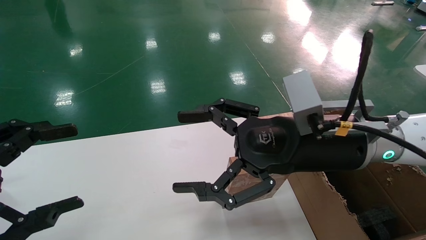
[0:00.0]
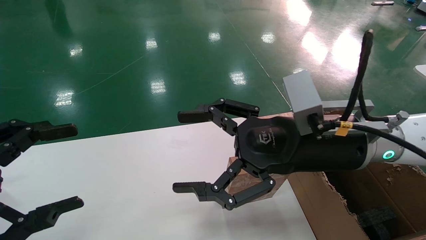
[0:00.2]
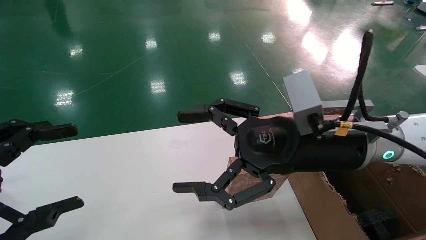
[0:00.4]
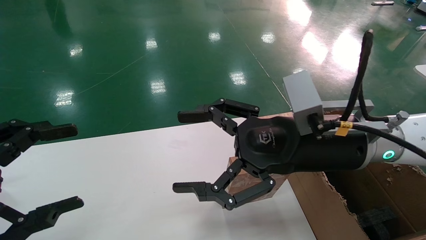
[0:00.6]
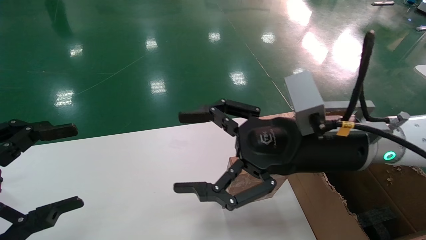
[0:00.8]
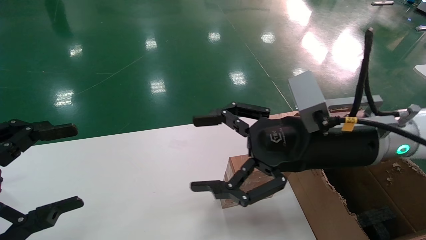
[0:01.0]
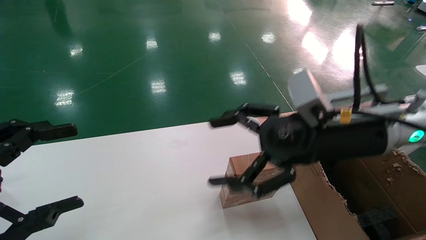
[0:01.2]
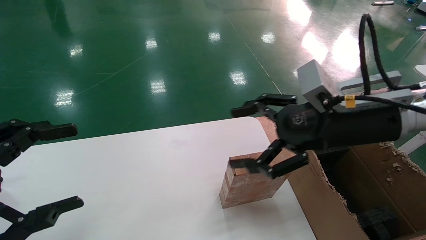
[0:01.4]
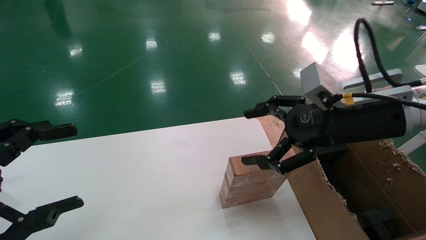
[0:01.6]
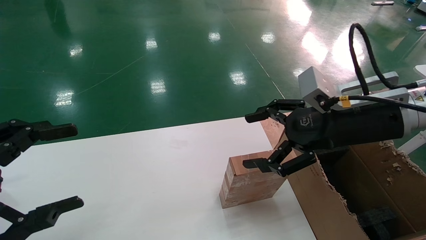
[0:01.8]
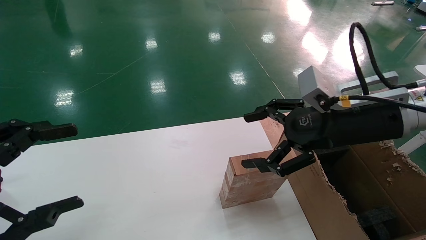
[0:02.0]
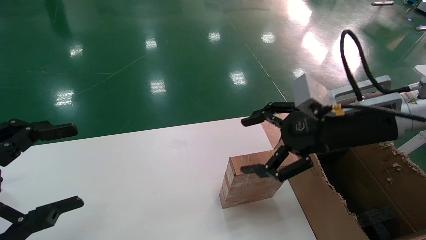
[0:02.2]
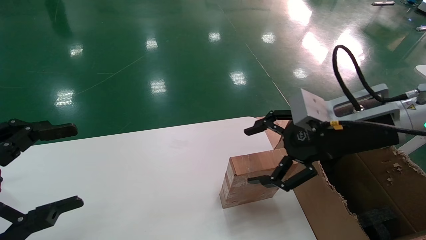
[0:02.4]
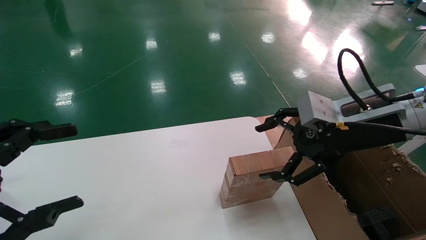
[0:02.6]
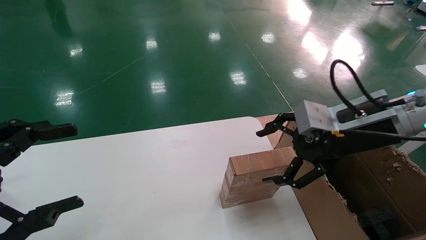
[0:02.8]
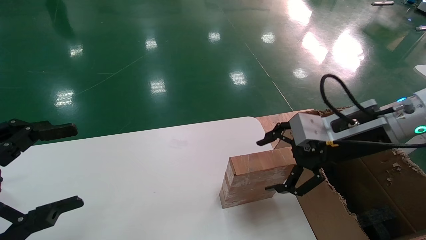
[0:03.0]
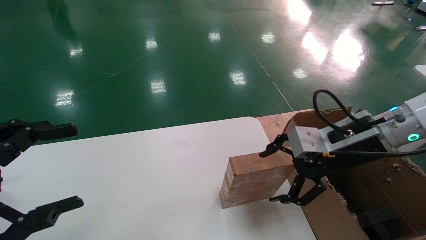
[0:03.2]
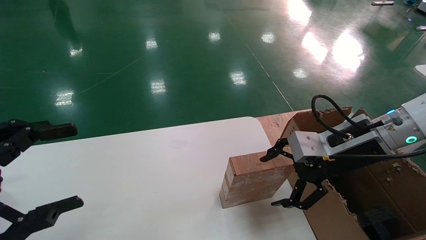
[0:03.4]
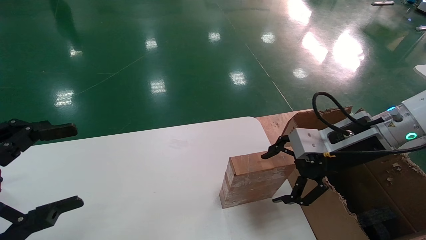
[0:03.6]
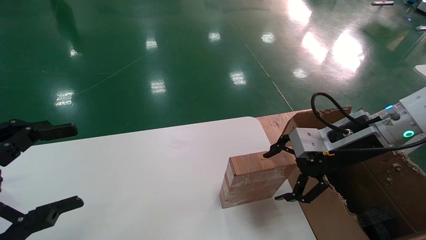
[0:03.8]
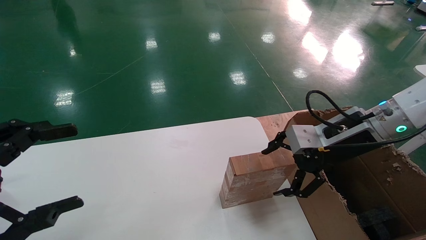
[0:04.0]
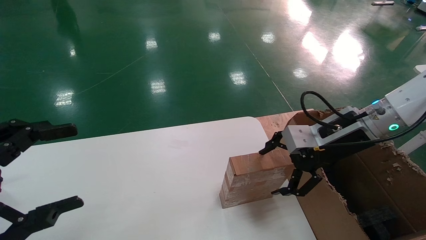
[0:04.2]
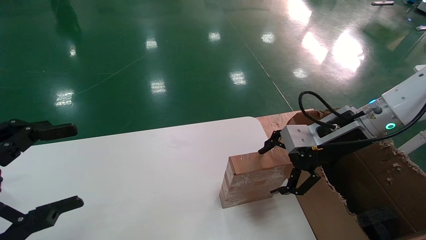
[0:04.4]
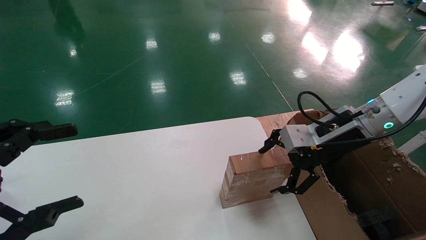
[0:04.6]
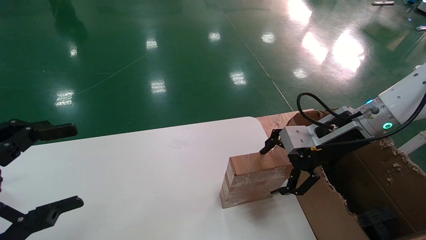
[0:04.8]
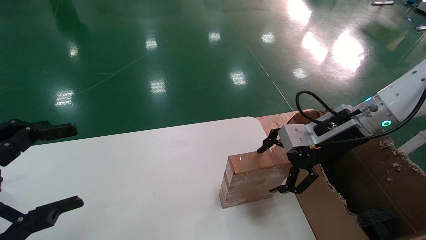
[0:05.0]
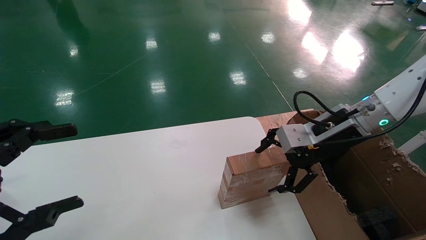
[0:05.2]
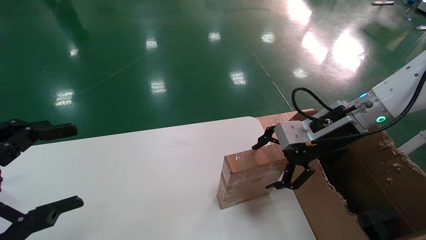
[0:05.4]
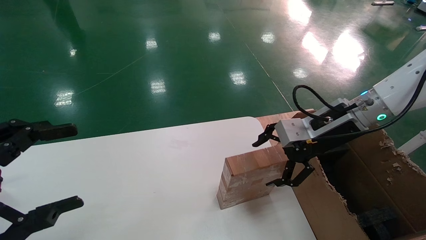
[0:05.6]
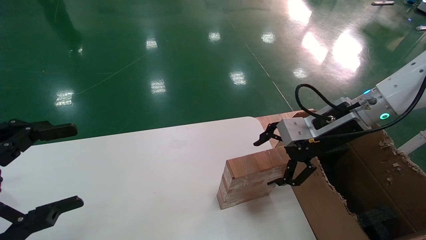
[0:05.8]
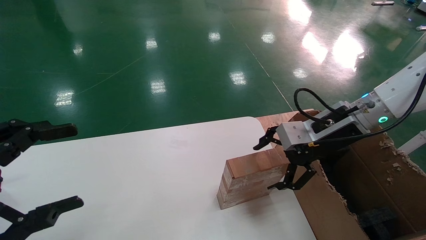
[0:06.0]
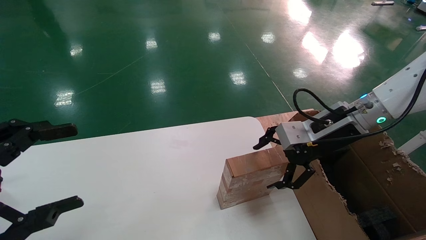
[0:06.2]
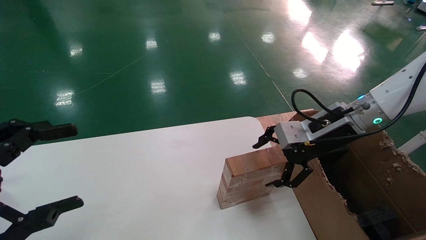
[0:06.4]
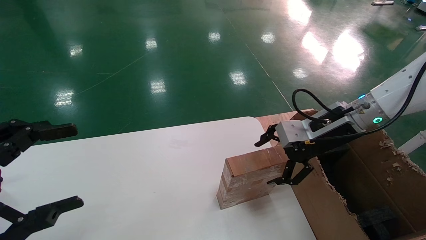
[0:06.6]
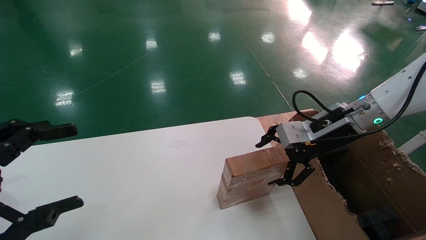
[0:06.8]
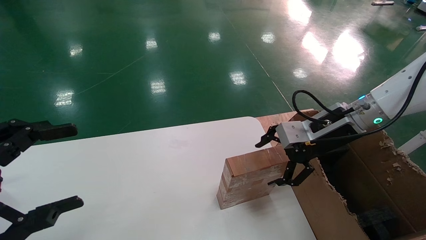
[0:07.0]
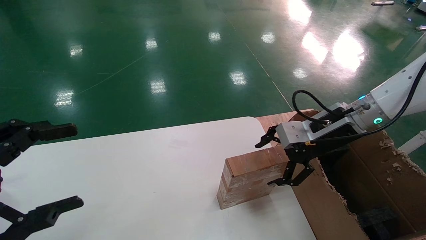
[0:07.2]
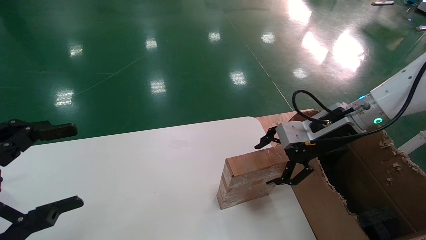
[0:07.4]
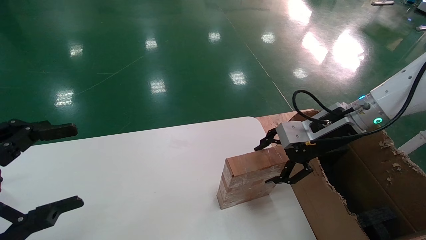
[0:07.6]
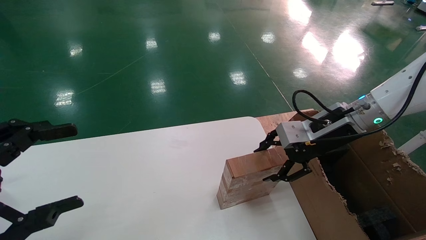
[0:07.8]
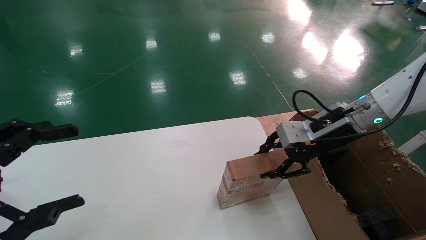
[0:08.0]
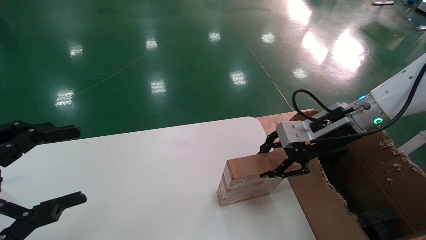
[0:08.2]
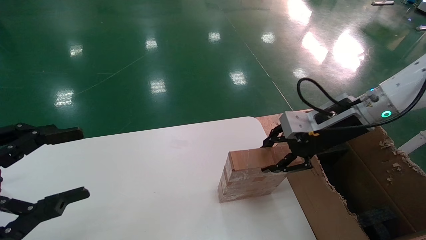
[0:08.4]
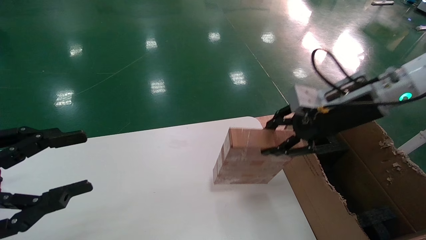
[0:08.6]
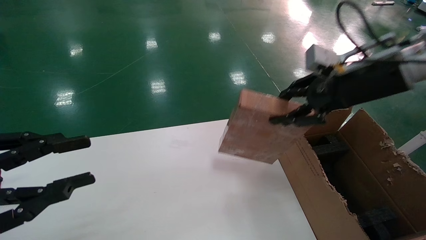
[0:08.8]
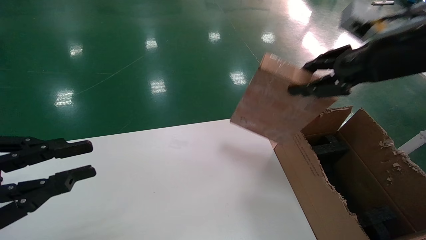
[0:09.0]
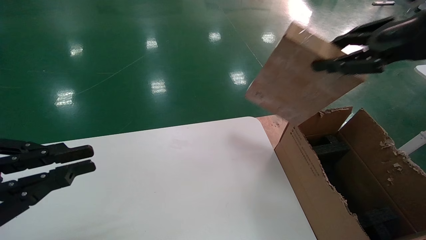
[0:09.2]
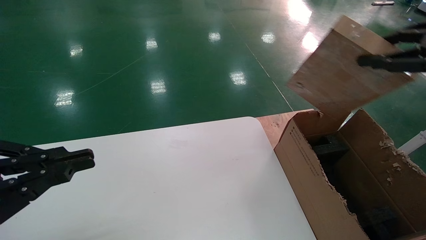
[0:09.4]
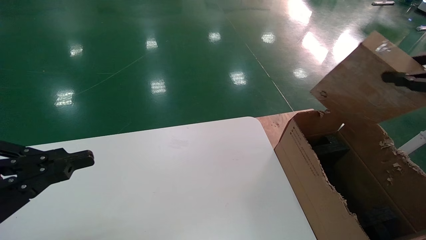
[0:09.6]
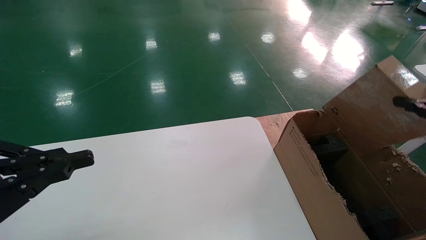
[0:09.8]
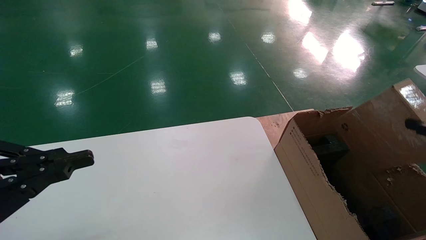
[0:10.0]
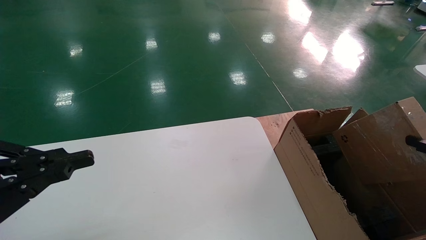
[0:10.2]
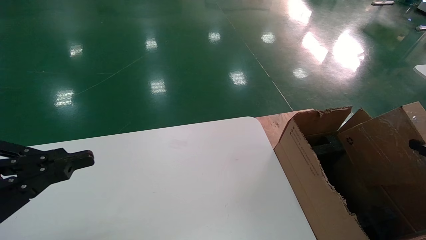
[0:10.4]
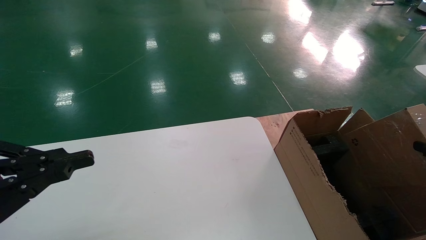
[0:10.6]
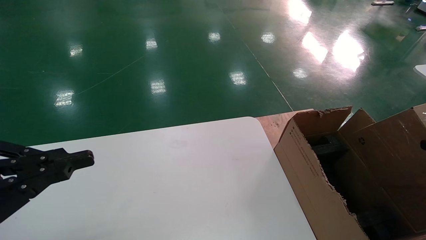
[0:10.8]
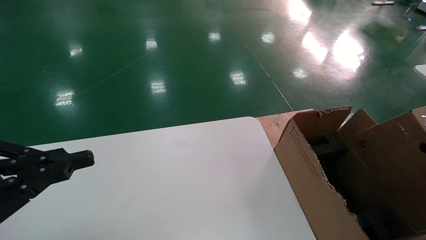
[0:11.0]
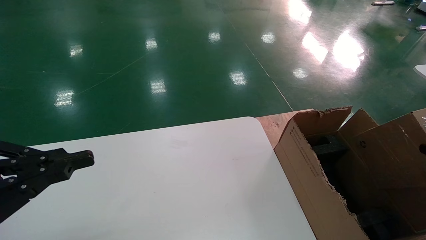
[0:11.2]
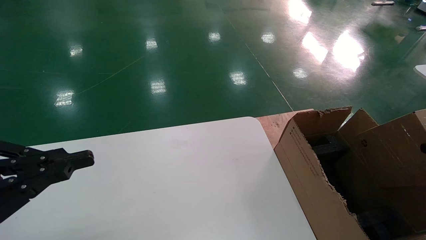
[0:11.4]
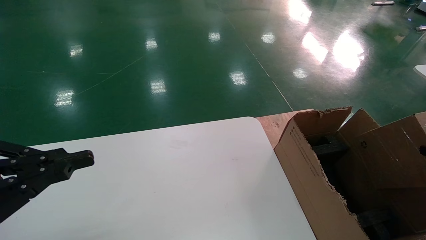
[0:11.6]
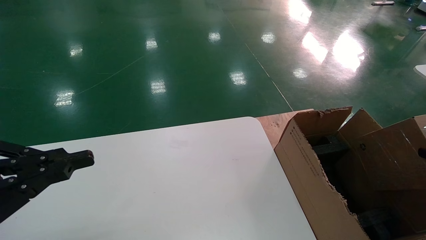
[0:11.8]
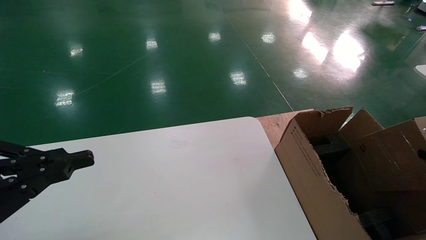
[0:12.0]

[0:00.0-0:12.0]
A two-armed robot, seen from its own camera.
Task of the whole recording: put the box on the table into the big box.
Step, 0:01.2 to 0:08.0: Pick up the mouse and the power cord paper box.
0:00.0 to 0:01.6: The right gripper heads to the right, covering roughly 10 cm.
0:03.0 to 0:04.4: The right gripper moves some 5 cm.
0:04.4 to 0:07.6: The grippers make only small movements.
0:07.6 to 0:09.0: The left gripper closes. Meanwhile the right gripper shifts approximately 15 cm upward and backward, and closes its fingers.
0:09.0 to 0:10.4: The left gripper closes up. Meanwhile the right gripper goes about 30 cm downward, backward and to the right.
0:10.4 to 0:12.0: The right gripper moves downward and to the right, approximately 10 cm.

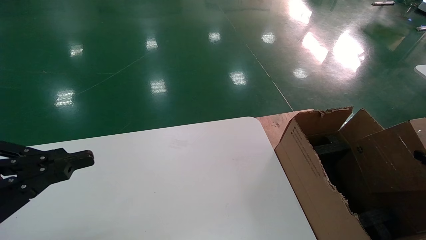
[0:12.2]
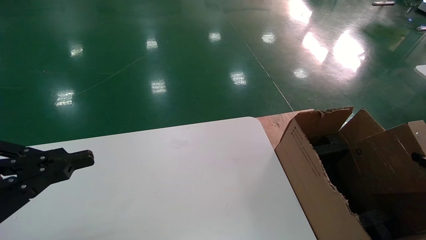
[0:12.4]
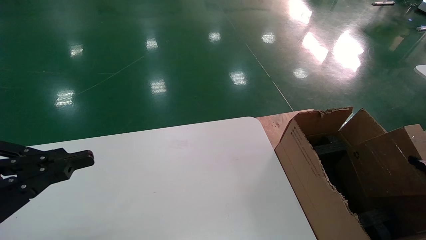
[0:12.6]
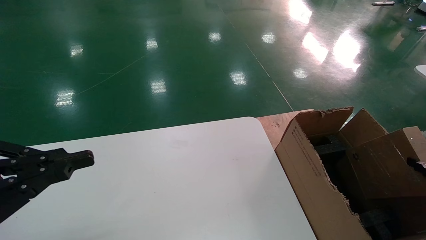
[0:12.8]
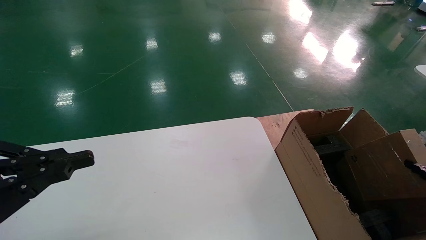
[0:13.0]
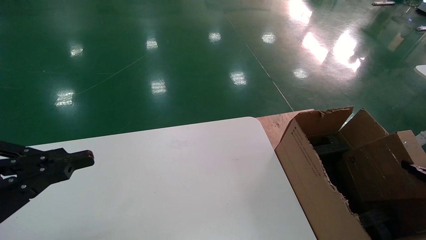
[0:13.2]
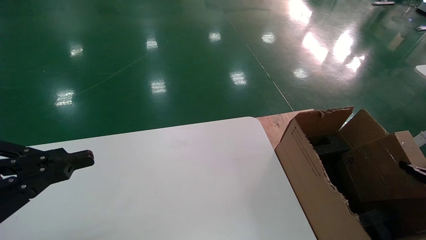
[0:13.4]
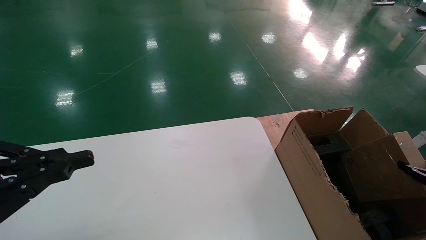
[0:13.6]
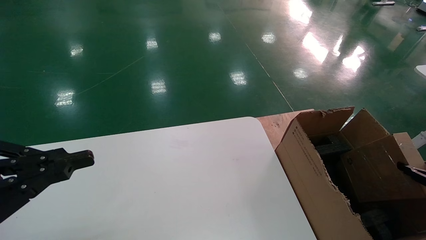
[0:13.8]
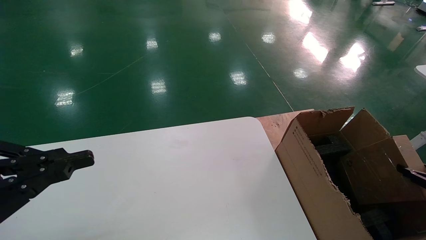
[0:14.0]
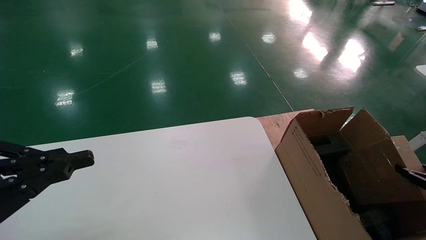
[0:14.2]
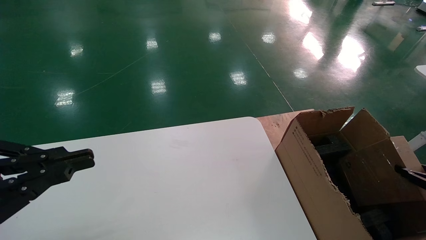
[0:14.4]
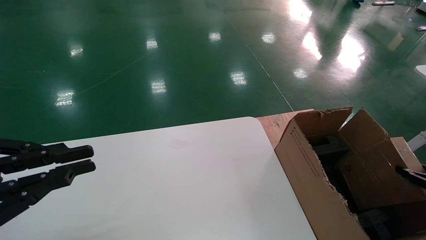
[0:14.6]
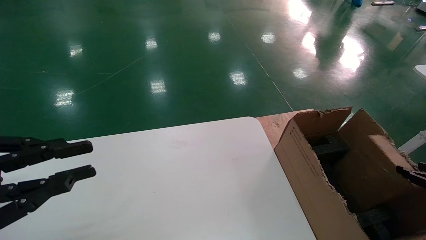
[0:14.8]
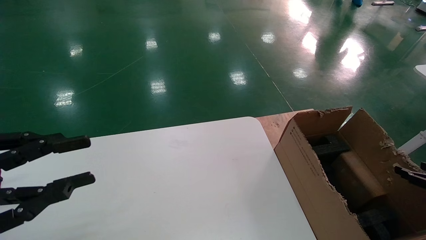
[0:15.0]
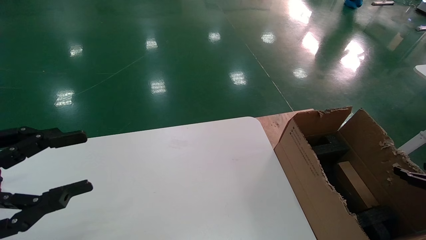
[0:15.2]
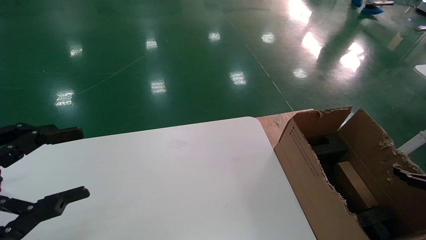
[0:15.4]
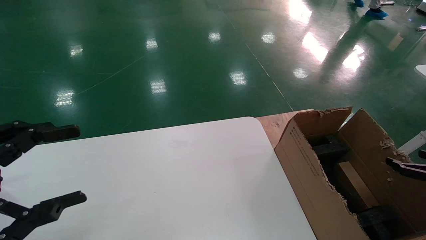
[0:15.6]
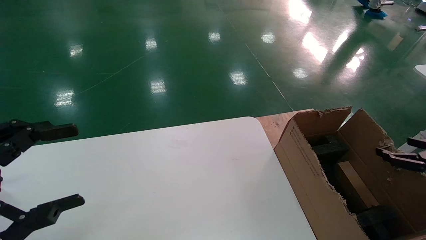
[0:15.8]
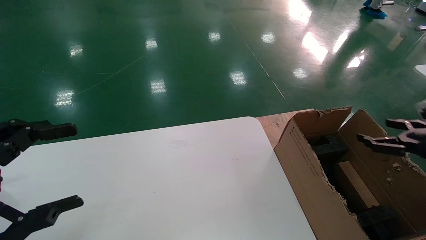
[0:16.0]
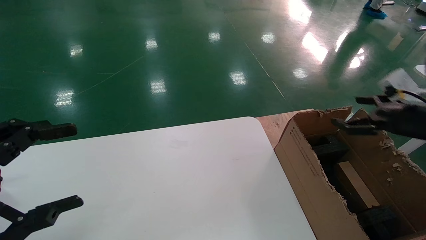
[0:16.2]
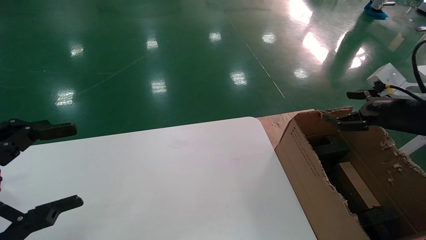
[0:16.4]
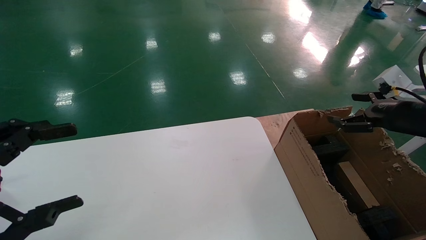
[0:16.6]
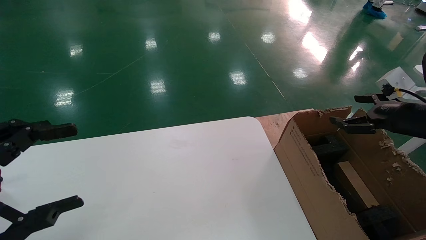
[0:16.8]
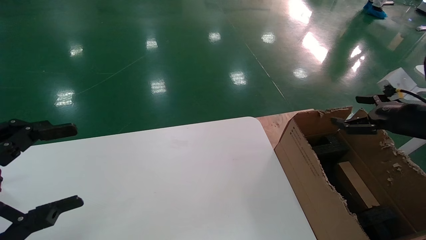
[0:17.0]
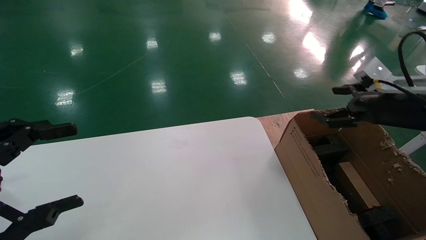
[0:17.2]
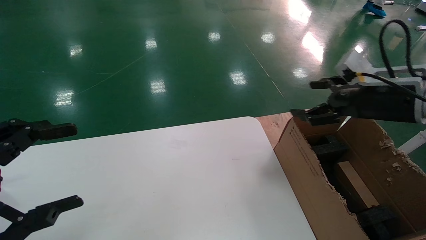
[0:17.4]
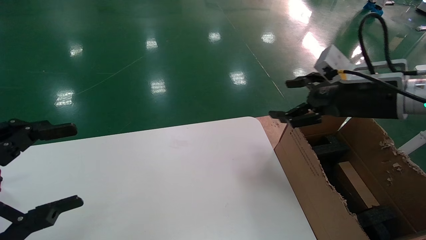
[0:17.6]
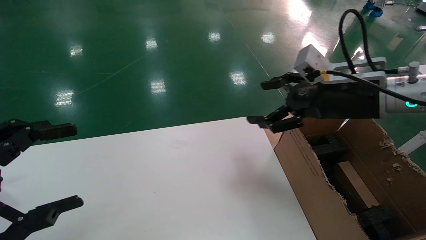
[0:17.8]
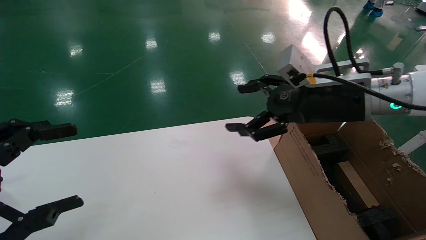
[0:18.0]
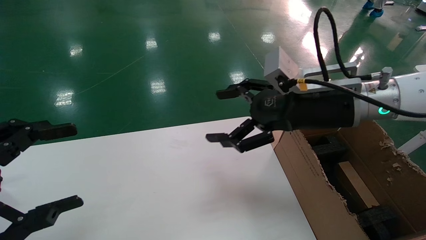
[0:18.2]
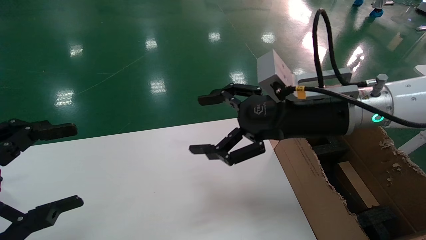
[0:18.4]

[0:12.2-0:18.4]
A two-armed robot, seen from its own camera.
Task of the whole recording: put the box on the table into the big box.
Step, 0:12.2 to 0:15.2: Place the mouse and the power cord paper box into the container.
0:12.2 to 0:13.8: The right gripper shifts by some 5 cm.
0:13.8 to 0:15.4: The right gripper opens. Meanwhile the left gripper opens.
0:15.4 to 0:16.8: The right gripper moves upward, to the left and forward, some 20 cm. Meanwhile the left gripper opens up.
0:16.8 to 0:18.4: The right gripper is displaced to the left by about 25 cm.
